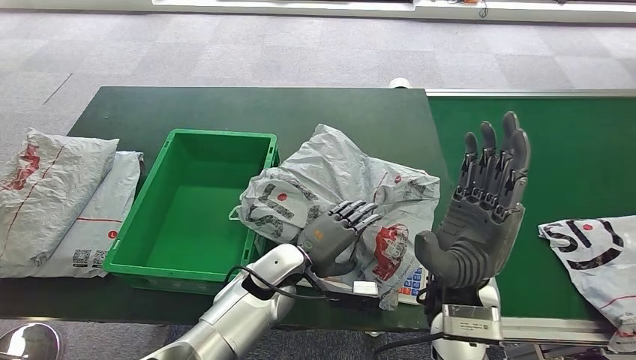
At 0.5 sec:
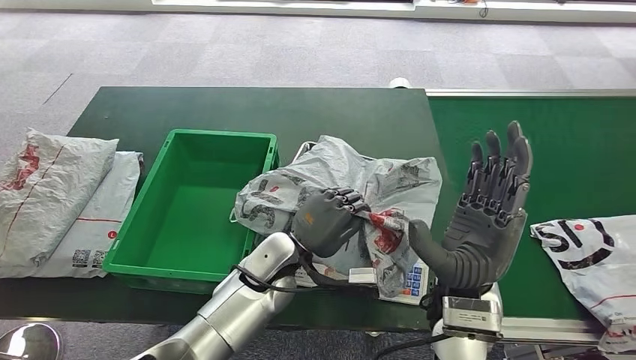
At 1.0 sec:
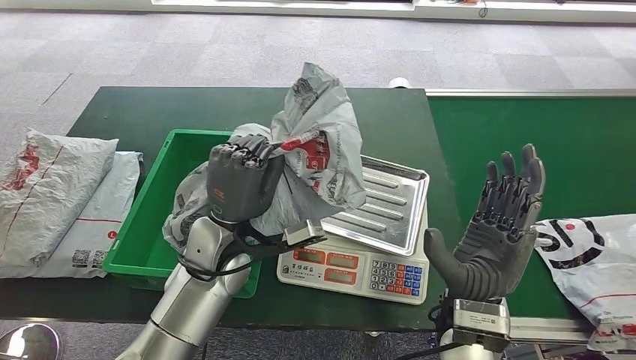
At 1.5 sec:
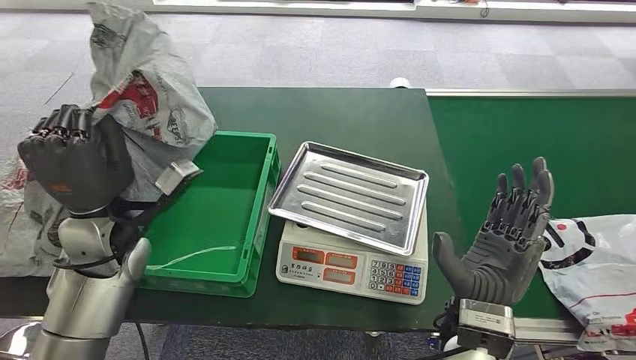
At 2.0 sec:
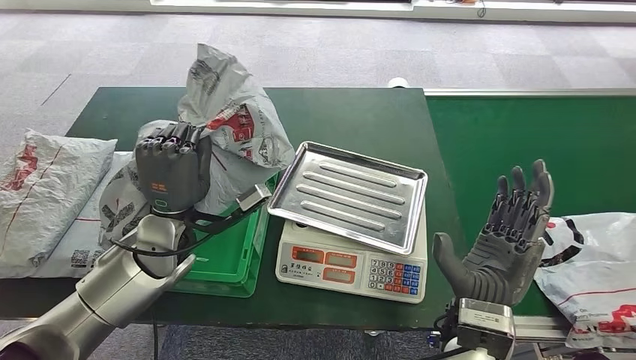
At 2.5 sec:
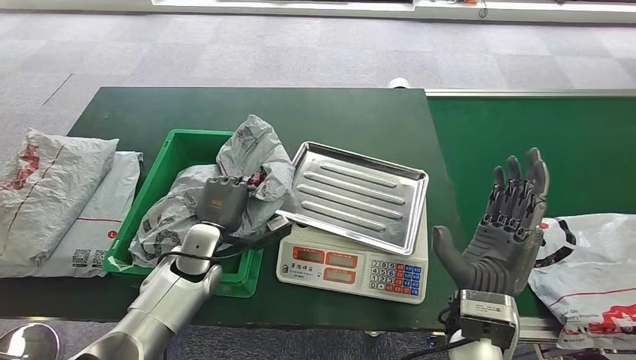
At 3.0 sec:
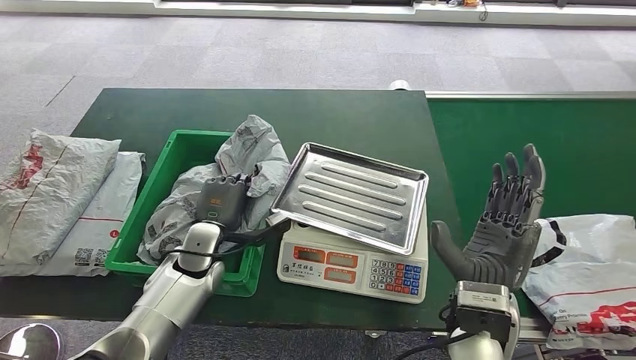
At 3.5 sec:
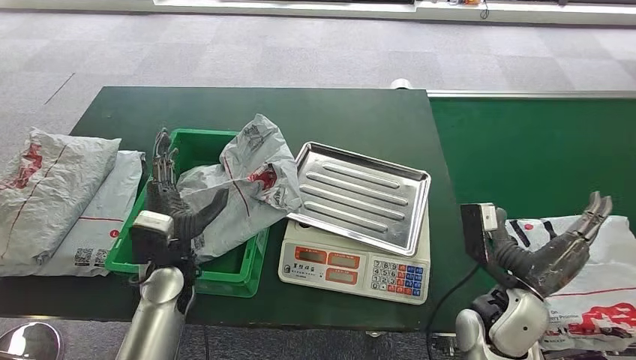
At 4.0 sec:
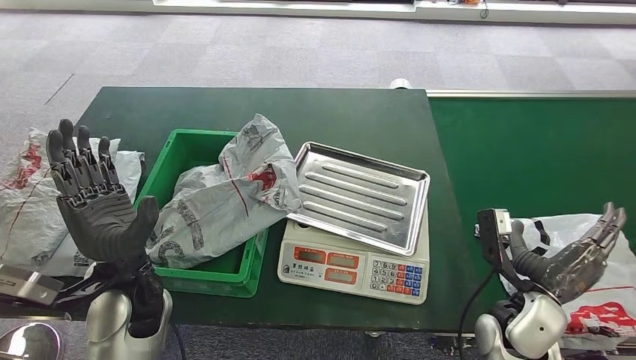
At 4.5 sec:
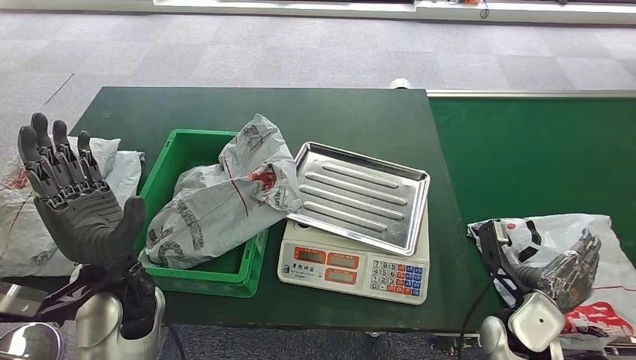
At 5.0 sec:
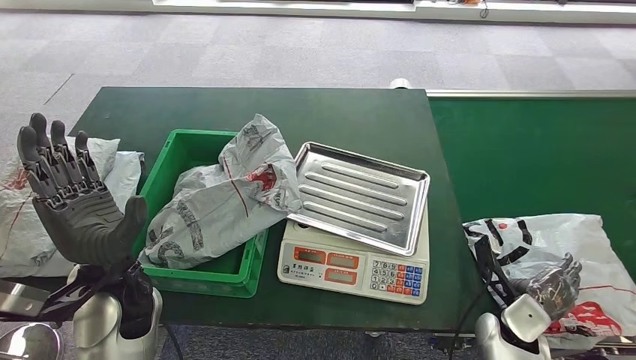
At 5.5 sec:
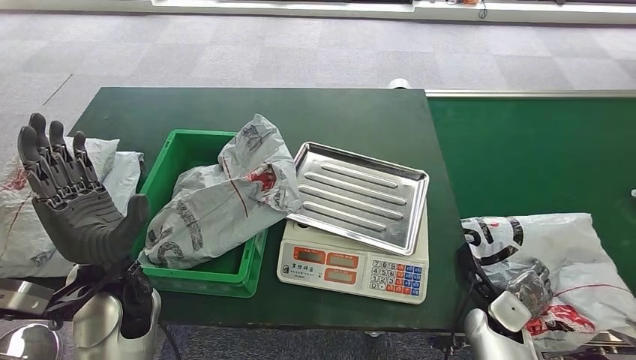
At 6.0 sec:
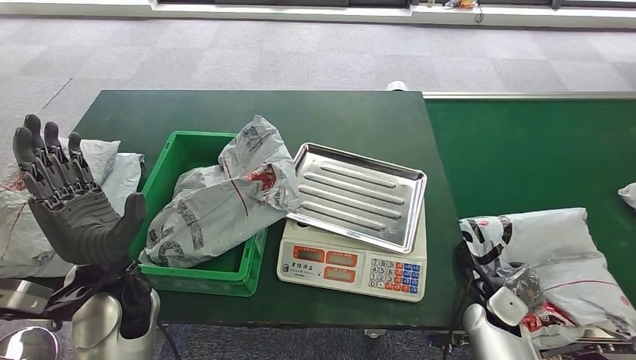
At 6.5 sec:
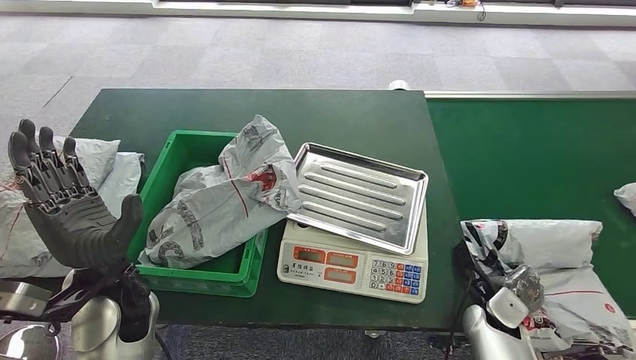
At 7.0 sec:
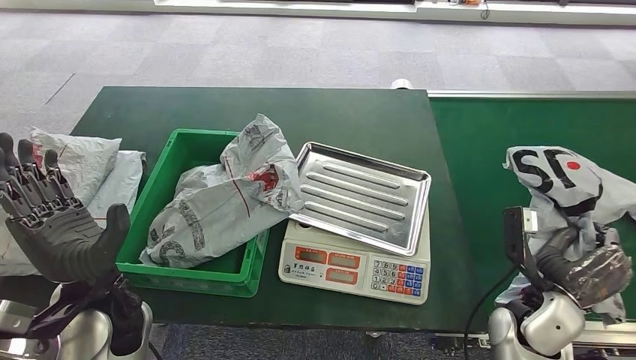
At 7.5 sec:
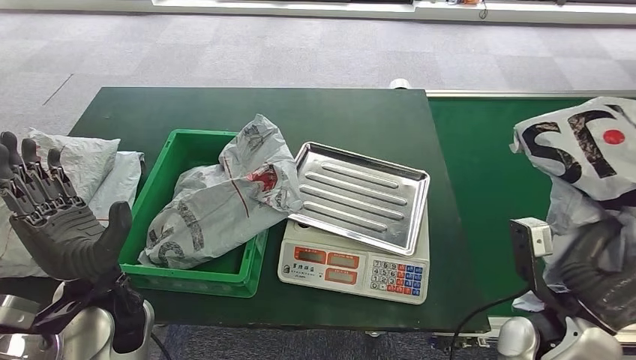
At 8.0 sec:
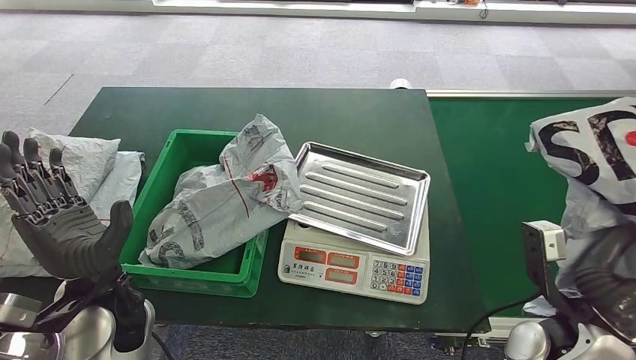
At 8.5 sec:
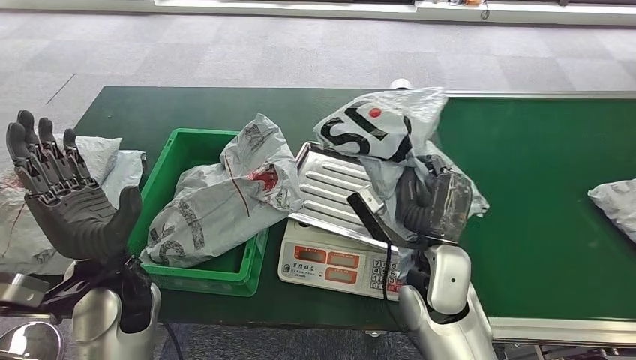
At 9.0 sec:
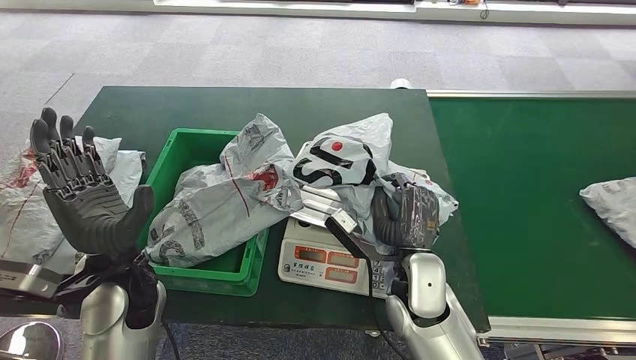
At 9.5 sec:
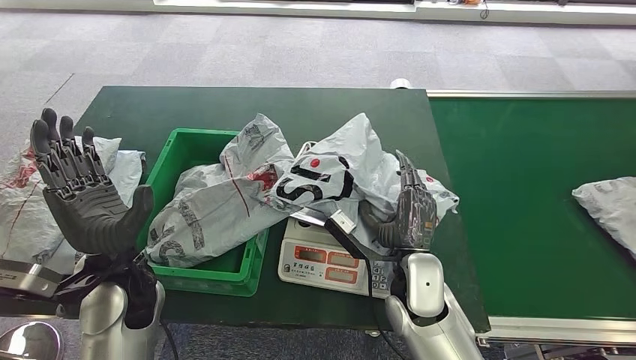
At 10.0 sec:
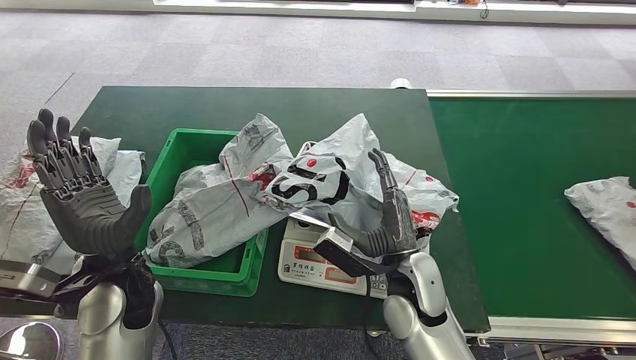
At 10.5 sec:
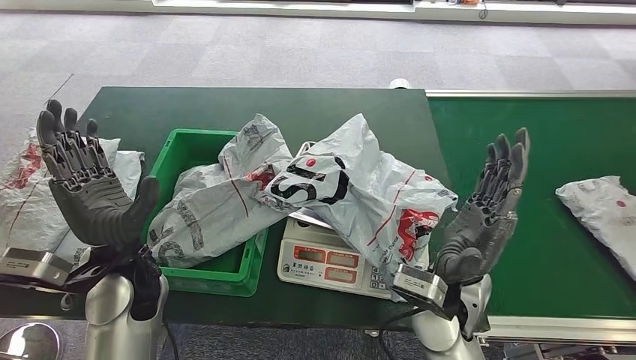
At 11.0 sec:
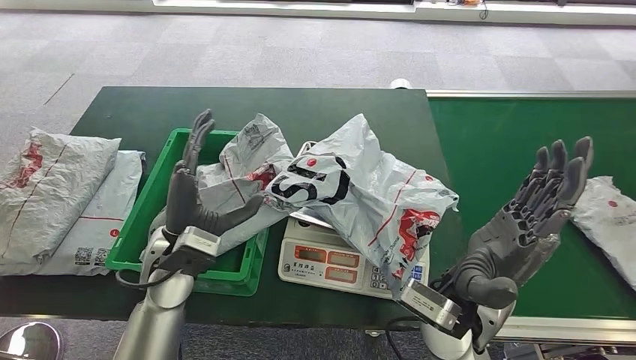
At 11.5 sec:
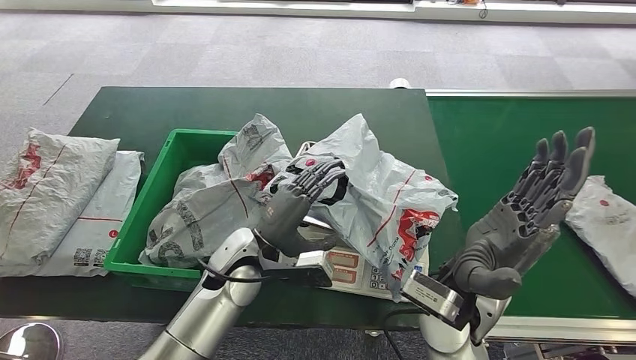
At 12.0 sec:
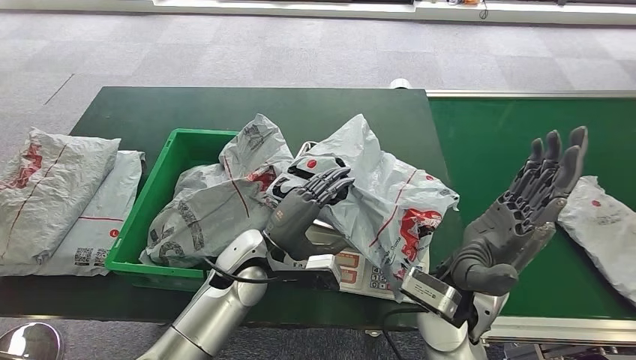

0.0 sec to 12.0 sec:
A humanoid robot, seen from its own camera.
Step, 0.0 sec to 1.5 sec: Pick up the parcel from the inbound machine.
Step, 2.0 sec to 4.0 sec: Put the parcel inside the courier box.
Step, 6.5 sec to 7.5 sec: Pick up the parcel from the conveyor belt.
Step, 8.0 sec to 10.0 sec: Place the parcel onto the inbound machine.

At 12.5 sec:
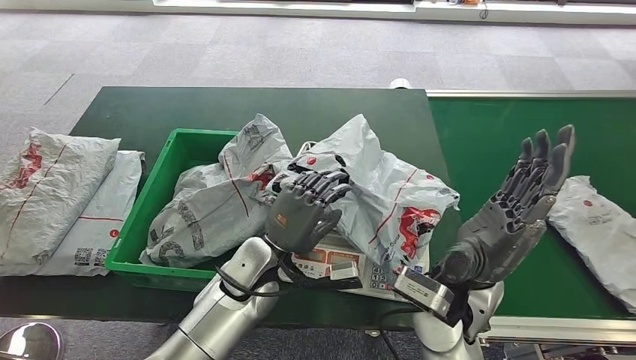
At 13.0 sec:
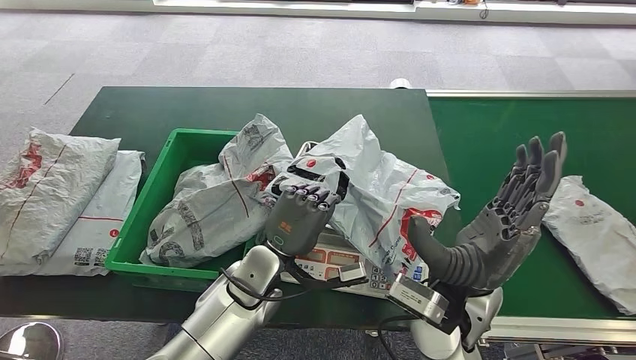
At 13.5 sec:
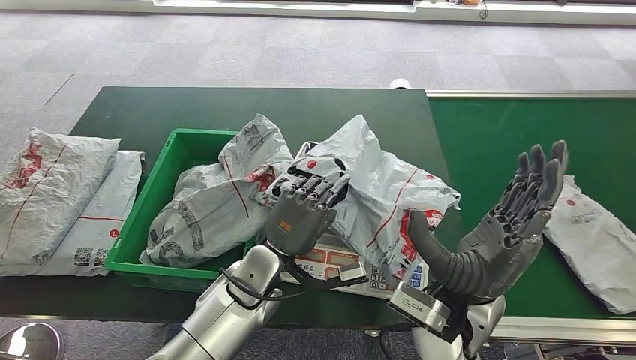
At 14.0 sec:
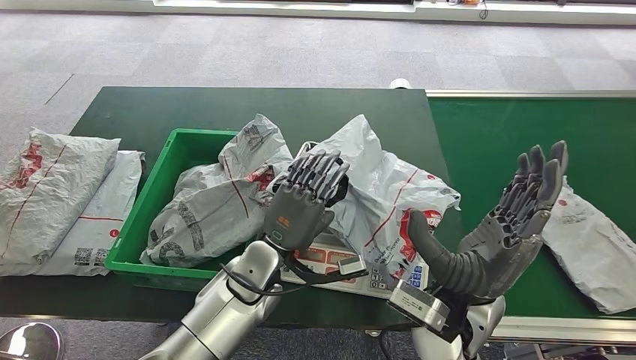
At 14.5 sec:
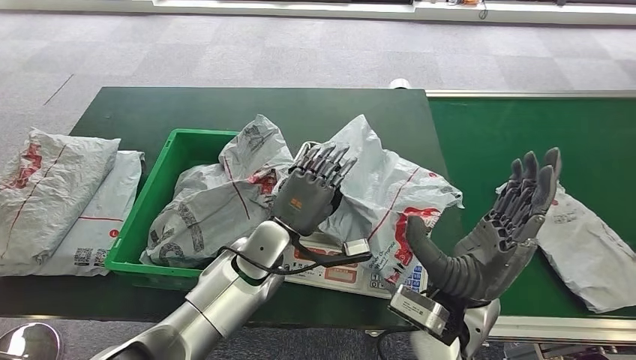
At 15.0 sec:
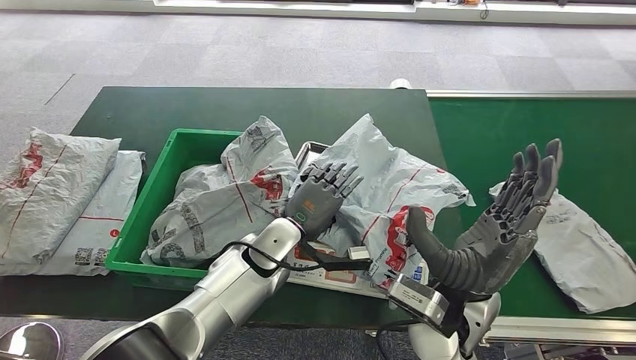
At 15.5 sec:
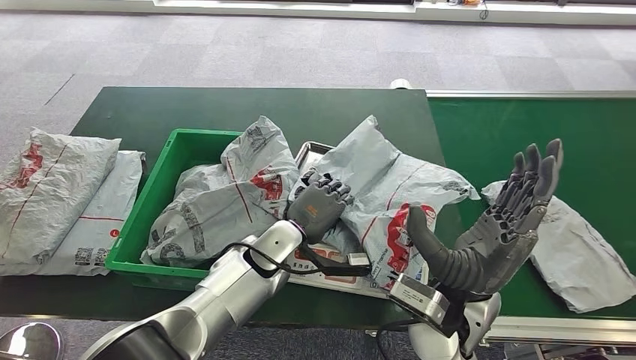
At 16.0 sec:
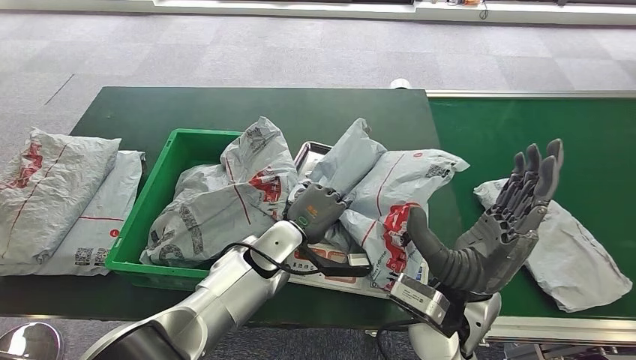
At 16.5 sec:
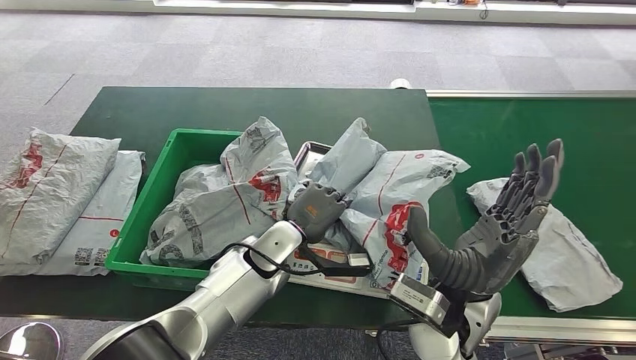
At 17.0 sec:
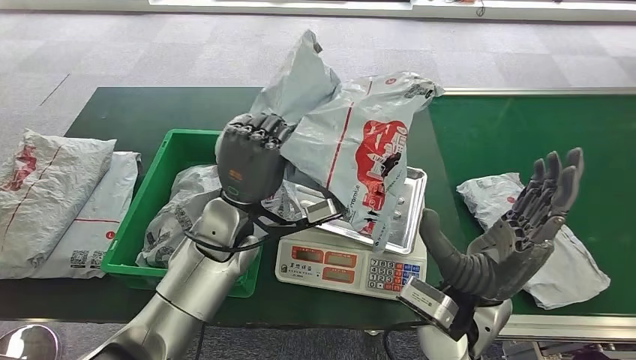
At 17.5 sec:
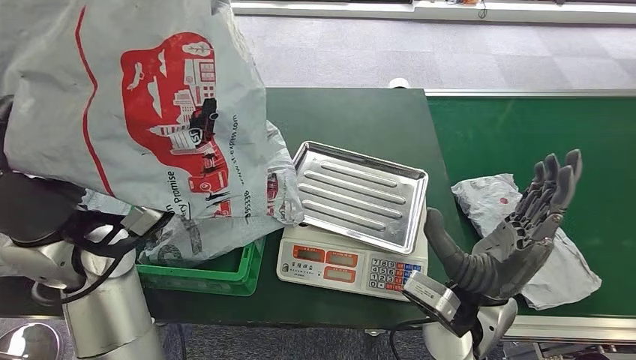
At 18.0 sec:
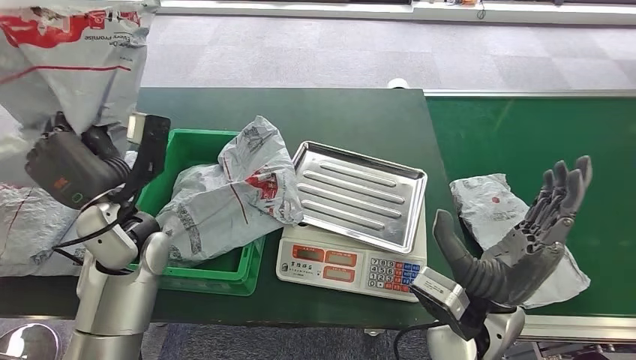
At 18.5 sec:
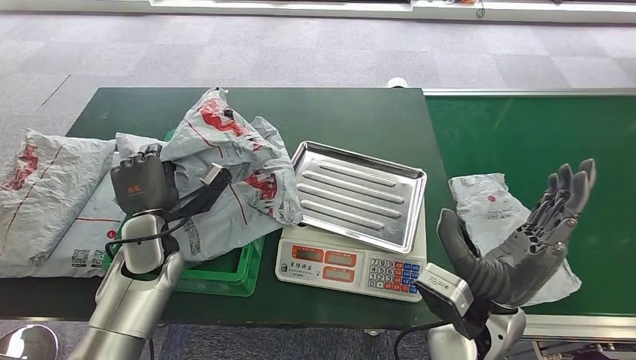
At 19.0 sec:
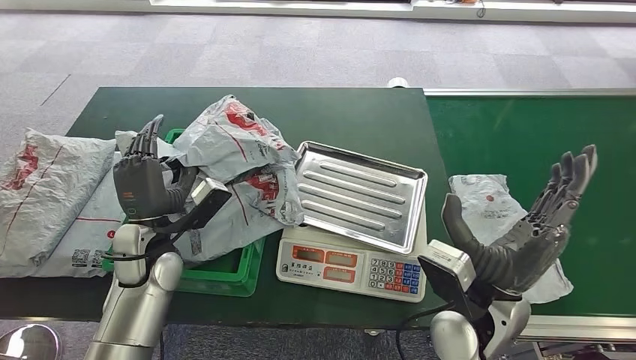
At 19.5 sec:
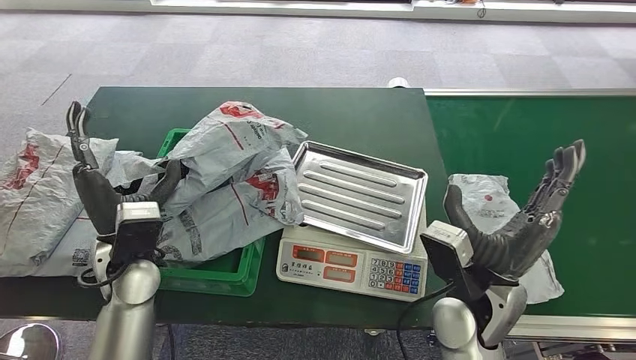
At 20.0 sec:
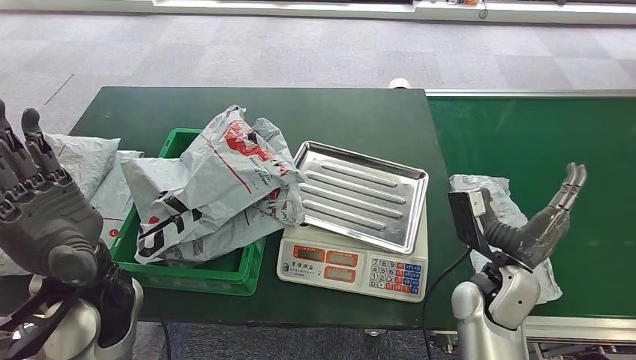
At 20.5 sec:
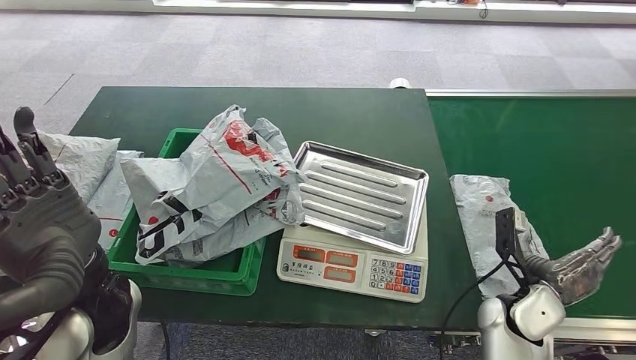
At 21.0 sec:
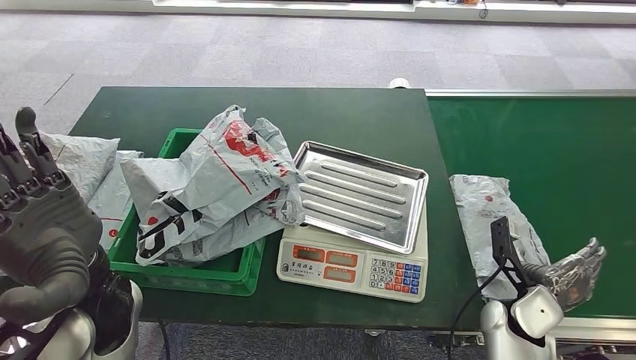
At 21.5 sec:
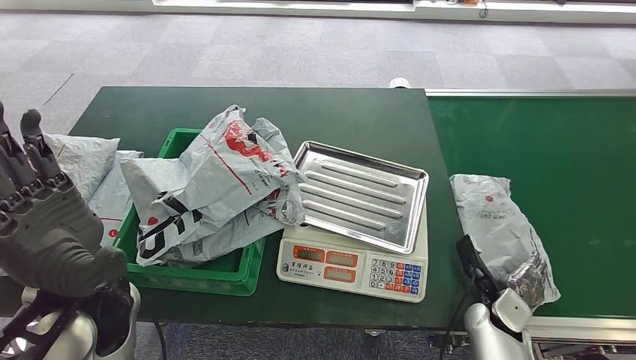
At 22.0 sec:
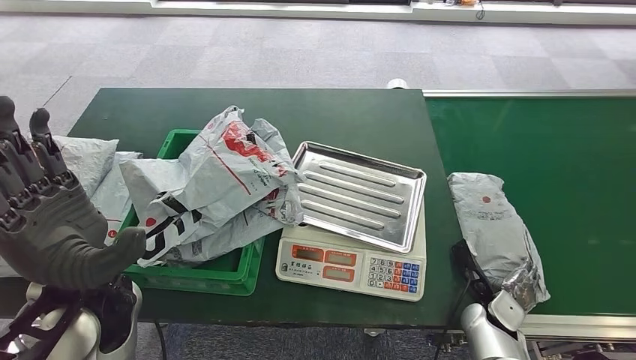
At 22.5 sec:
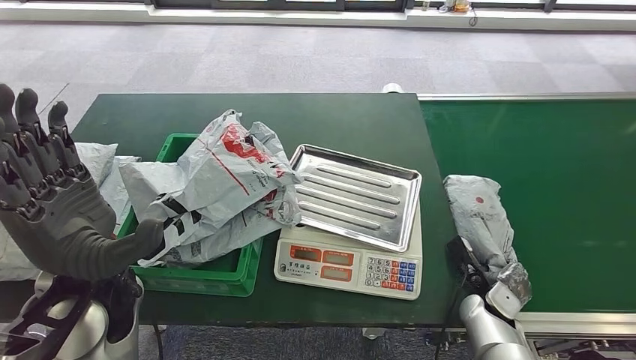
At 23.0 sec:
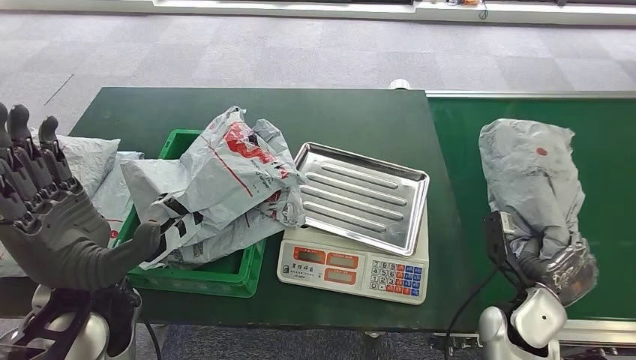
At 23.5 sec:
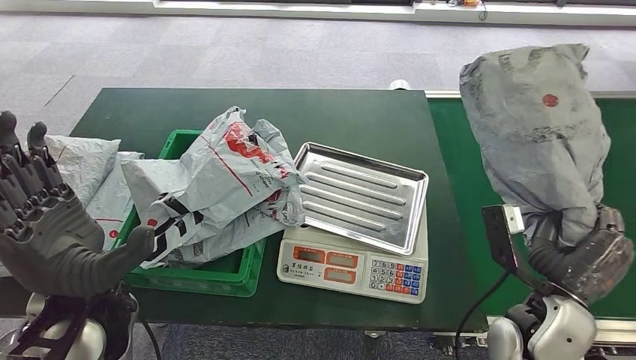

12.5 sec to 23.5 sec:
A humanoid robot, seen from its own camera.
Step, 12.5 sec to 17.5 sec: Pick up the parcel from the inbound machine.
Step, 18.0 sec to 20.0 sec: Place the parcel into the delivery box.
14.5 sec to 16.0 sec: The hands stay close to where they were, moving slightly.
20.0 sec to 21.5 sec: The right hand heads downward and to the right, covering about 15 cm.
